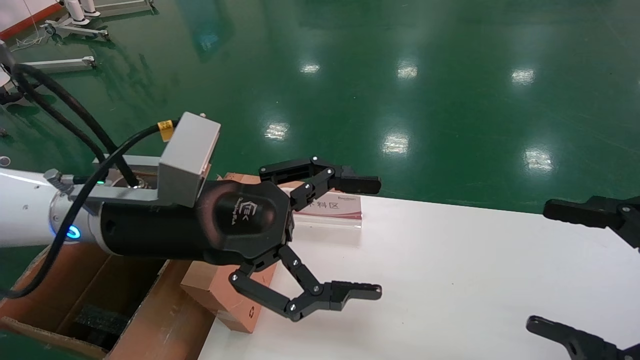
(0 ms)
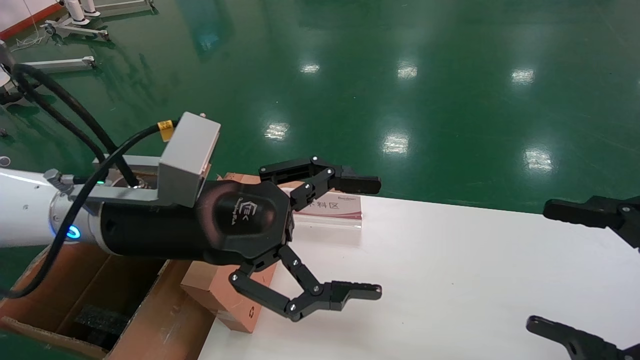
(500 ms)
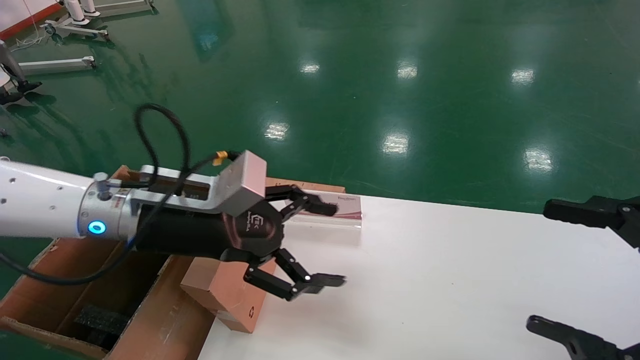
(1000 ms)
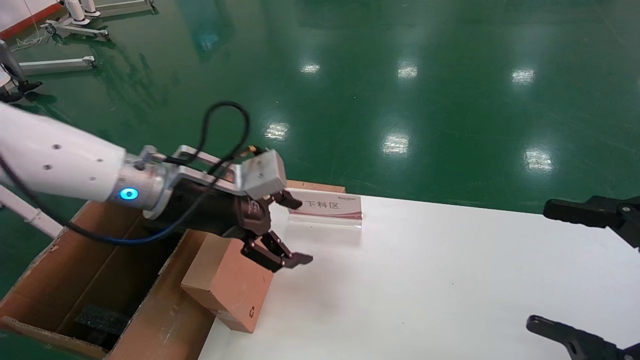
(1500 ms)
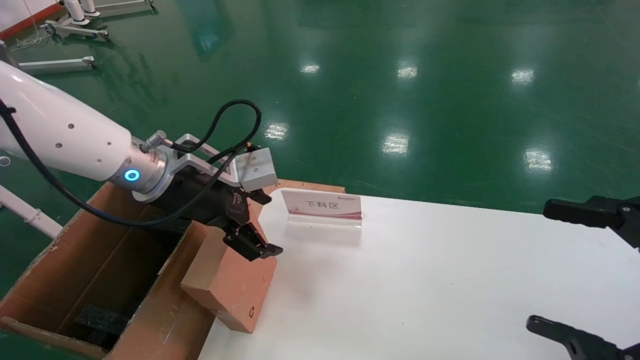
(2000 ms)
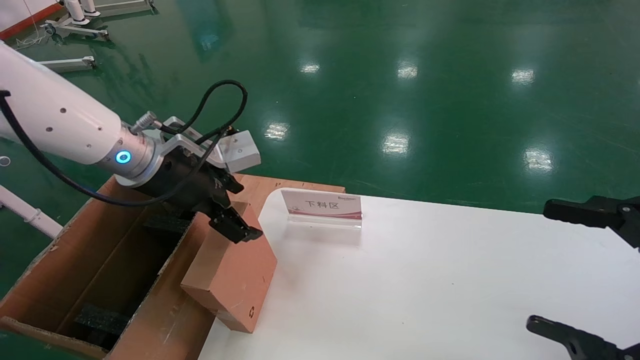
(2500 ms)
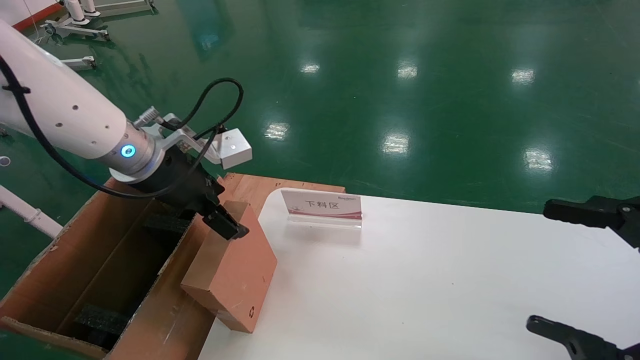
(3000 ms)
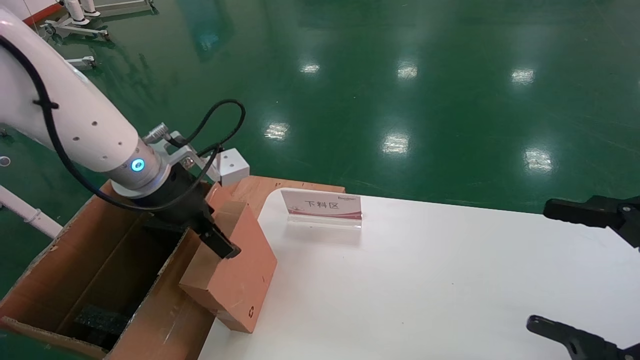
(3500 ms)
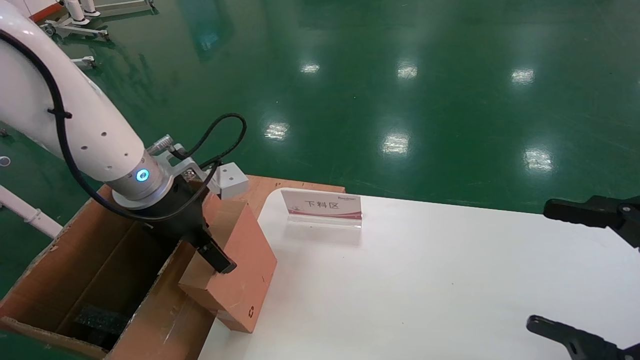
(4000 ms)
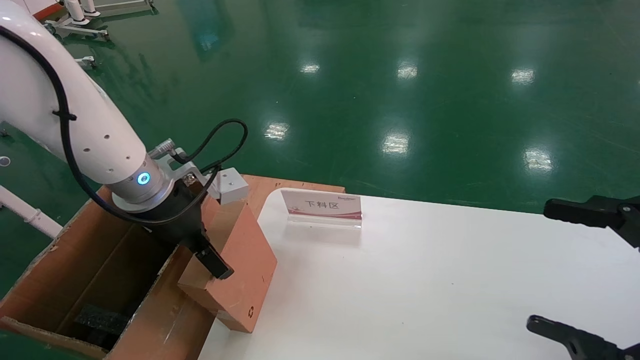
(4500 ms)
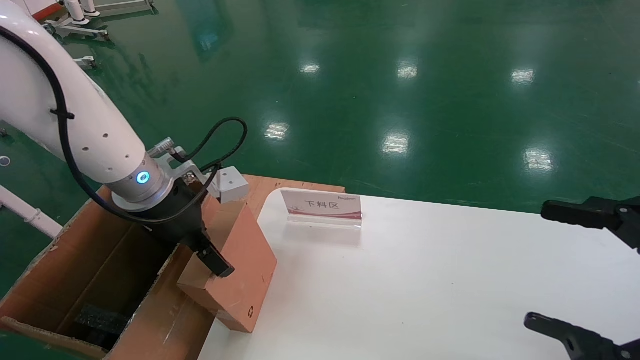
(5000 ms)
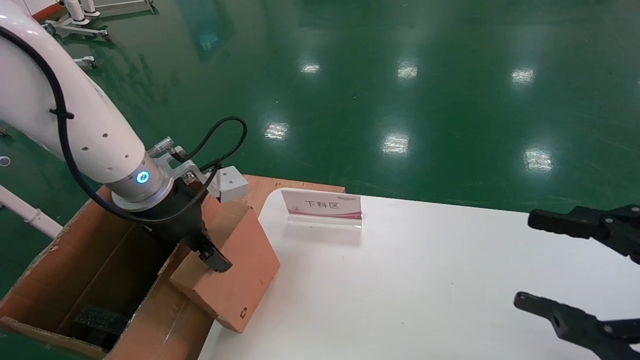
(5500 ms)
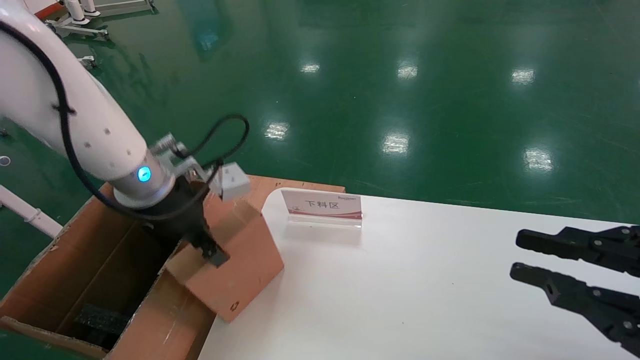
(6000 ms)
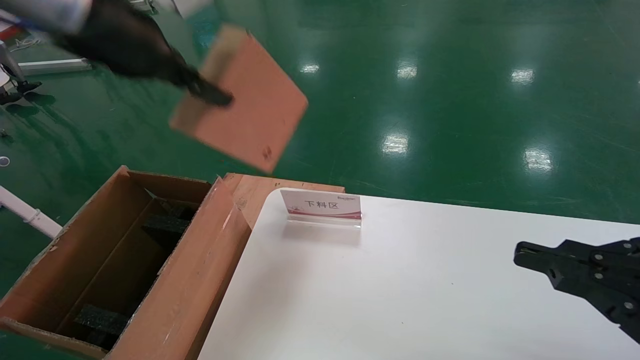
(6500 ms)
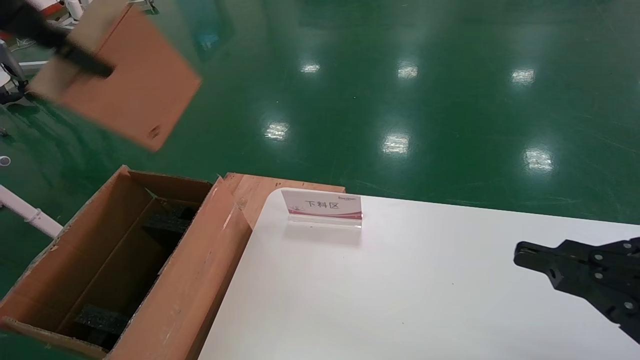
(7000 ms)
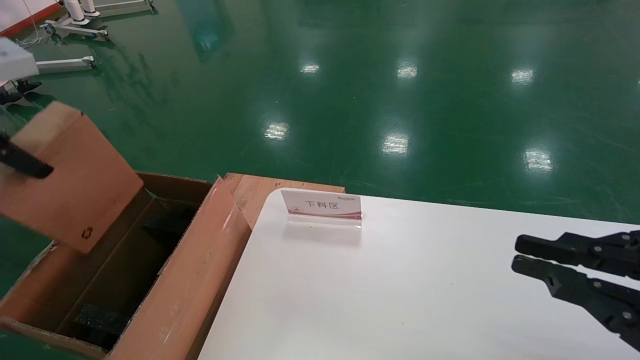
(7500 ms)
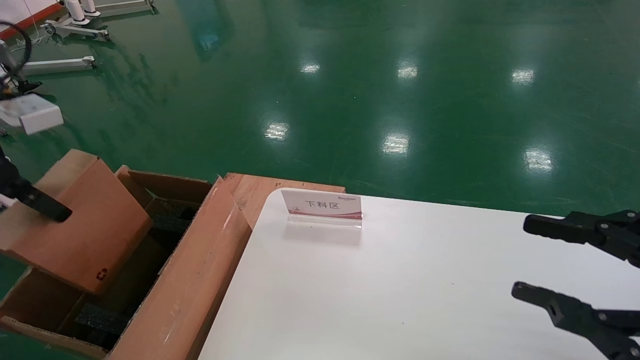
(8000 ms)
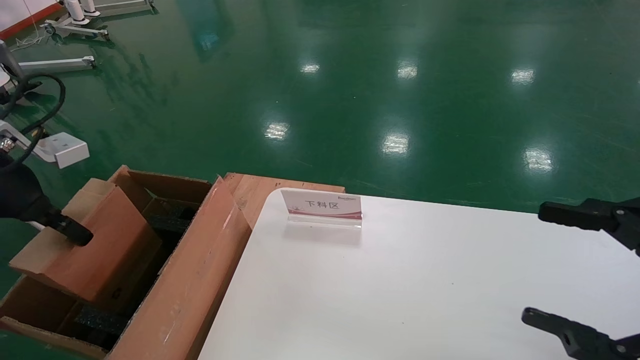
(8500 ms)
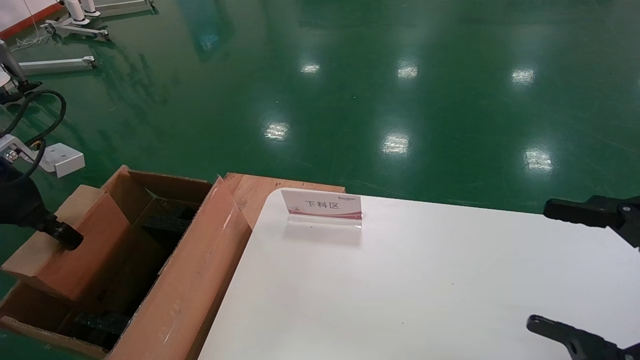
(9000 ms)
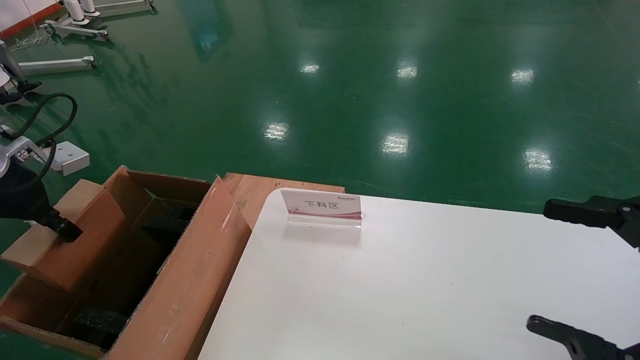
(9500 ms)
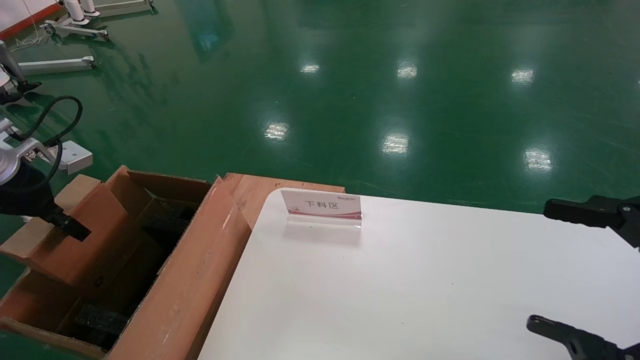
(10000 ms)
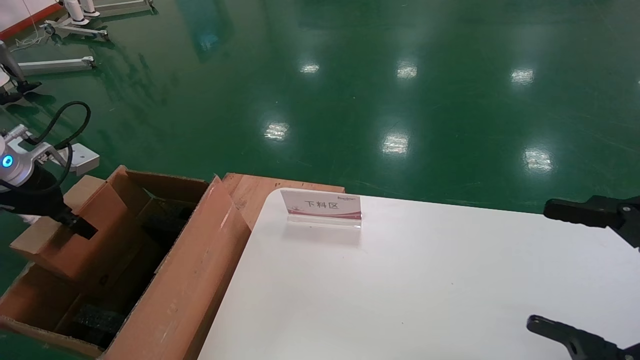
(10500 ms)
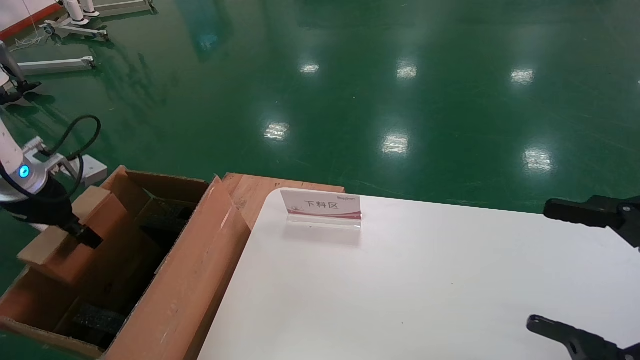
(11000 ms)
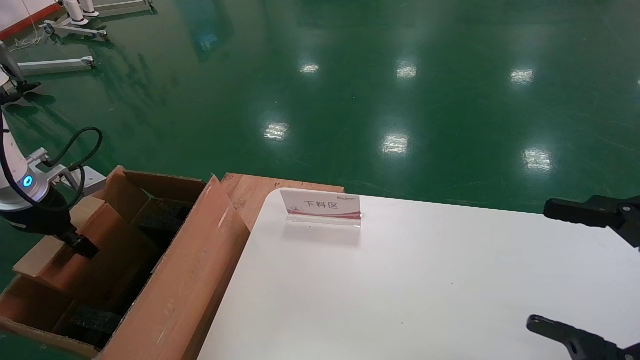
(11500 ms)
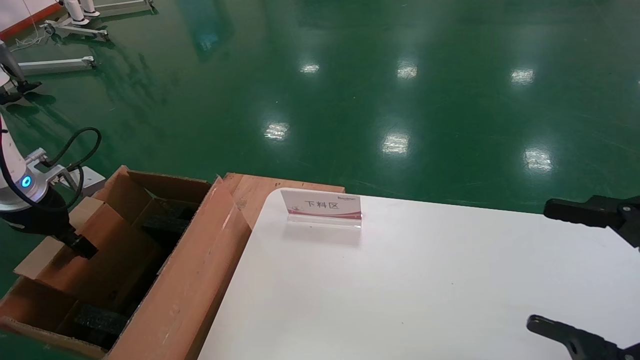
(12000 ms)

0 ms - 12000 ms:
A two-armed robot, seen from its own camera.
Task of the whole recording: pick up the small cardboard box and load it into the large cardboard box.
Step, 1000 ms - 5500 ms: Pick up the mouse and power cord box.
0 ms - 2000 ms: The left gripper shifts roughly 10 cm forward.
4000 ms - 6000 ms: The right gripper closes up; the left gripper closes up.
6000 ms - 8000 ms: The left gripper moves to the left and backward, approximately 20 cm, and travels upward and back again, some 20 cm each way.
8000 ms - 10000 ms: The left gripper shifts roughly 15 cm downward, forward and to the left. Meanwhile the right gripper opens.
10000 ms - 12000 ms: The left gripper is displaced downward by some 5 cm.

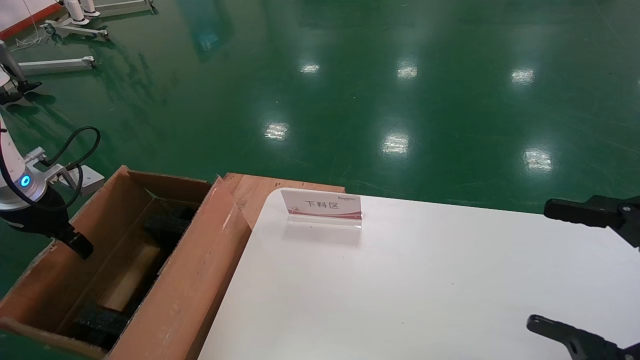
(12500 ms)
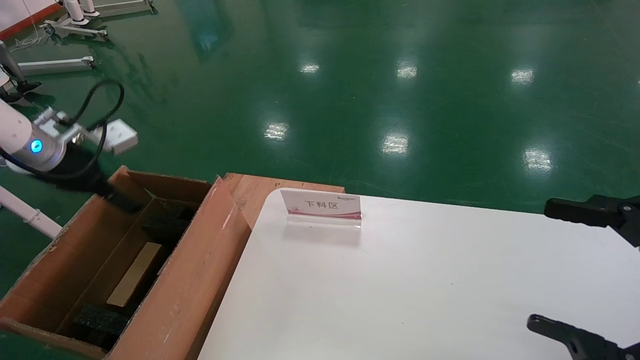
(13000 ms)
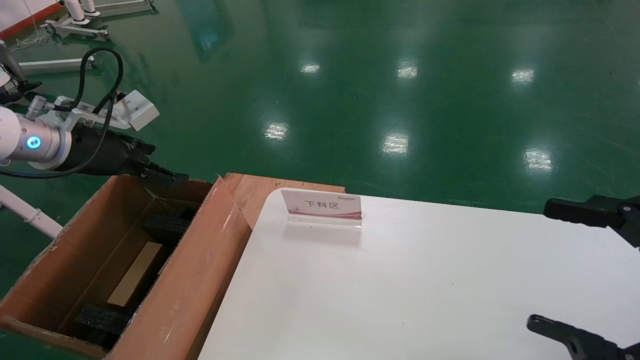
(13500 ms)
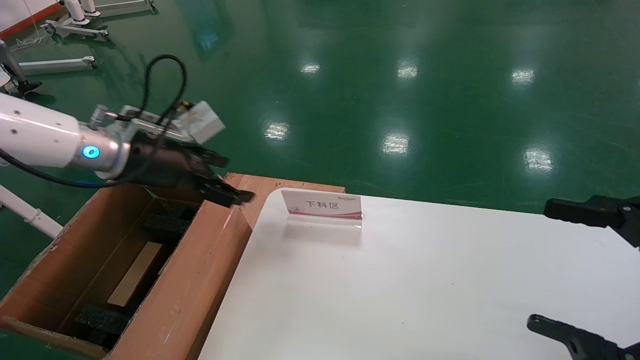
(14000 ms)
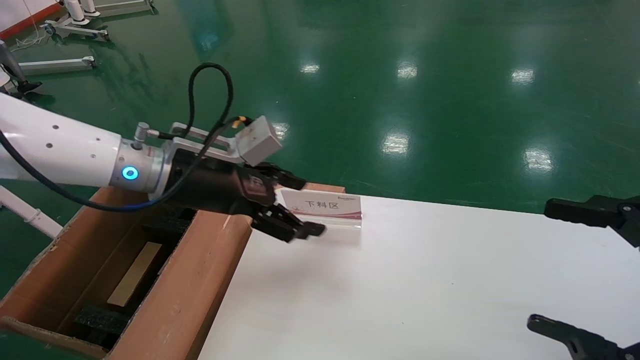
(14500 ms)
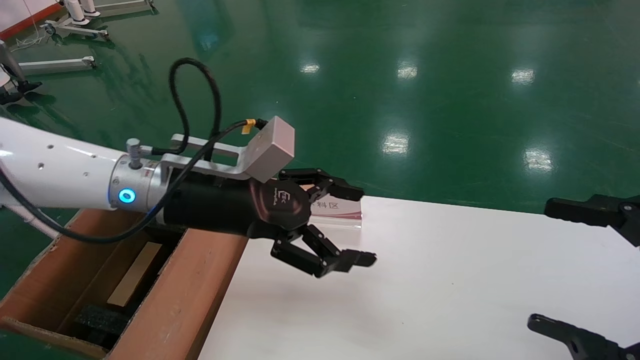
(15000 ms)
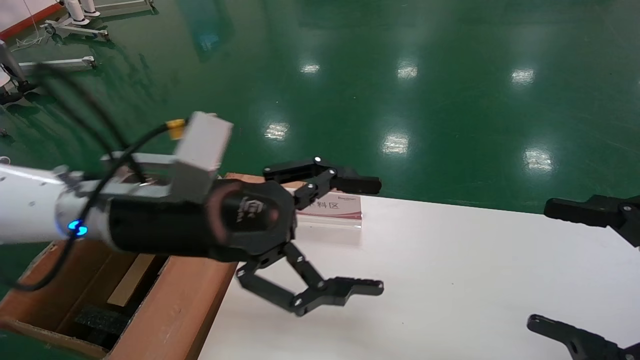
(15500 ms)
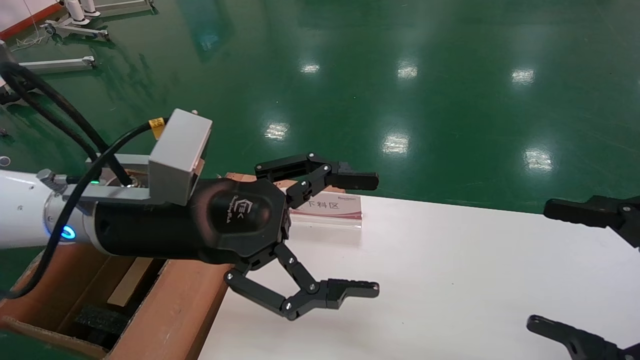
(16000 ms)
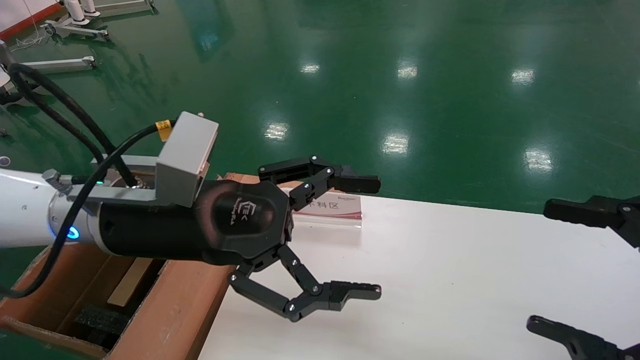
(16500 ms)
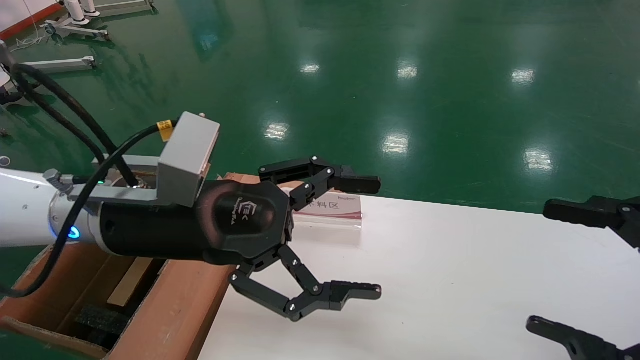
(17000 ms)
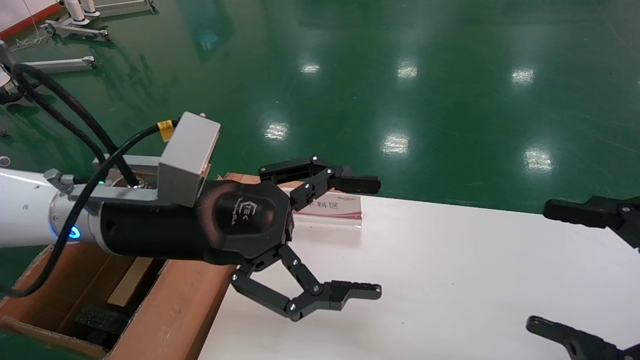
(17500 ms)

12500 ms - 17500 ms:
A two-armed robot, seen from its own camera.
Task of the whole recording: pick up the small cardboard box and load it into the large cardboard box.
12500 ms - 15000 ms: The left gripper travels to the right by some 30 cm, and opens.
15000 ms - 17500 ms: The left gripper is displaced backward by roughly 5 cm.

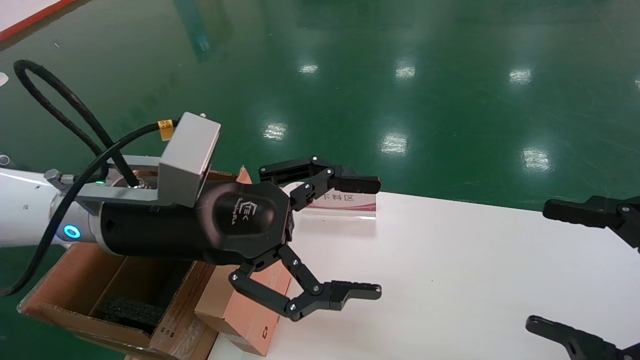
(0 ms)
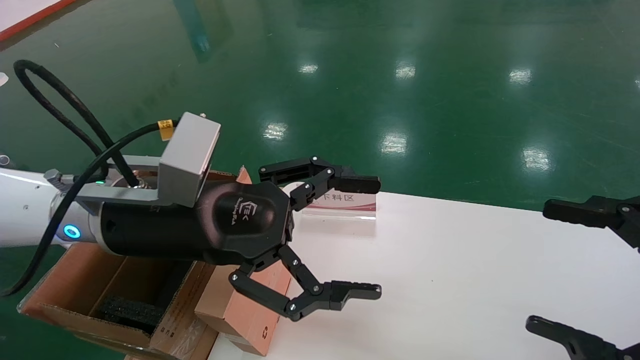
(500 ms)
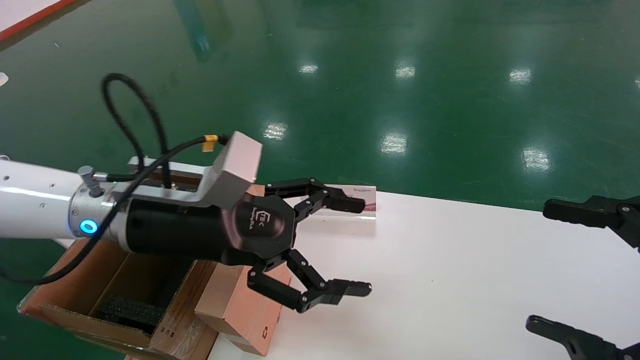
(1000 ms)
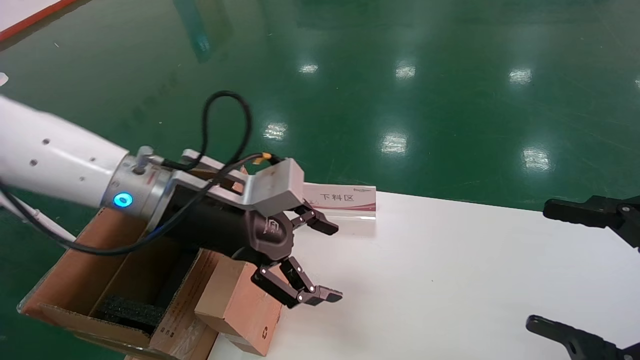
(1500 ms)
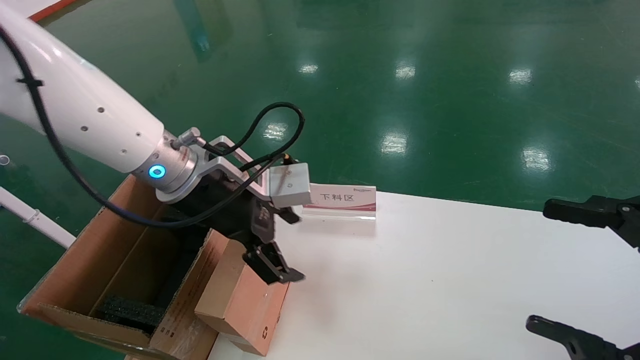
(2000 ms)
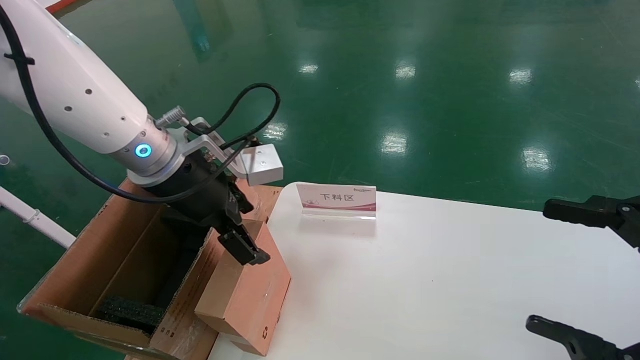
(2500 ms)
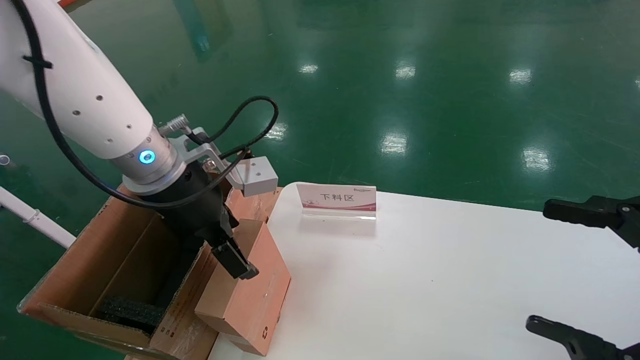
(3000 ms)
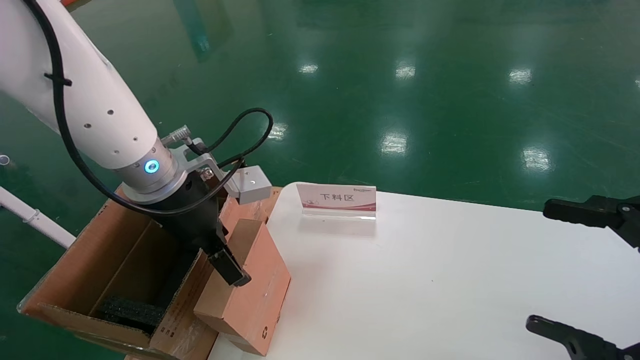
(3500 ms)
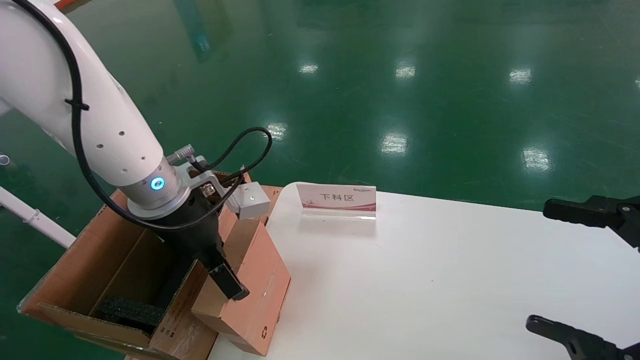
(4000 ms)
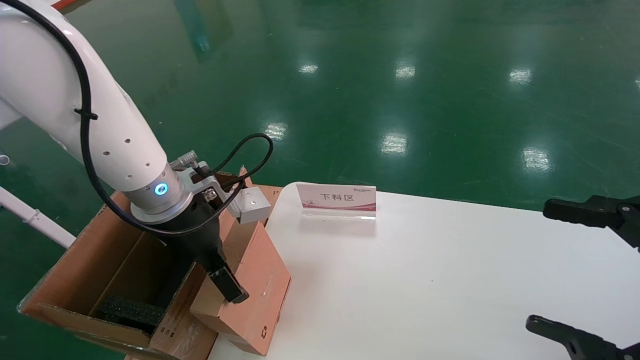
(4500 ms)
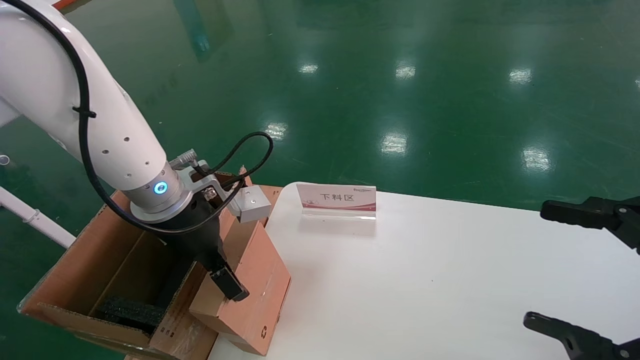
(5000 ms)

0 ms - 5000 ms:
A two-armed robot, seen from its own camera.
Task of the whole recording: pick up the small cardboard box and load it into the large cardboard box.
0 ms - 2500 ms: The left gripper goes roughly 5 cm forward.
2500 ms - 5000 ms: The left gripper moves some 5 cm.
